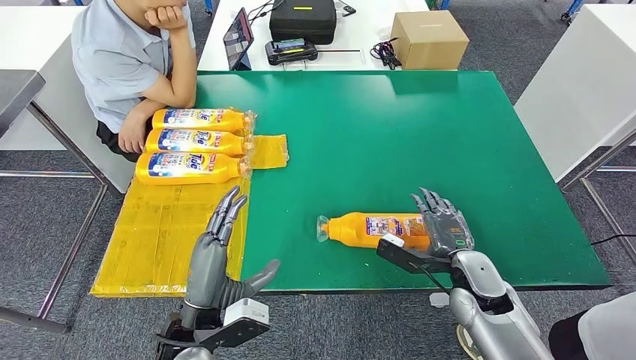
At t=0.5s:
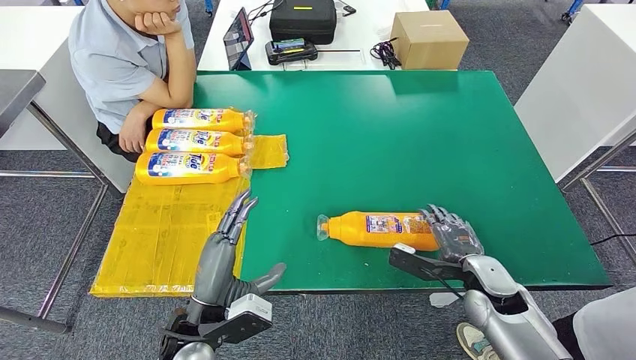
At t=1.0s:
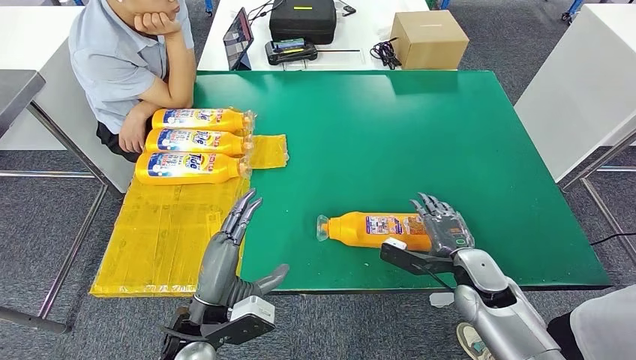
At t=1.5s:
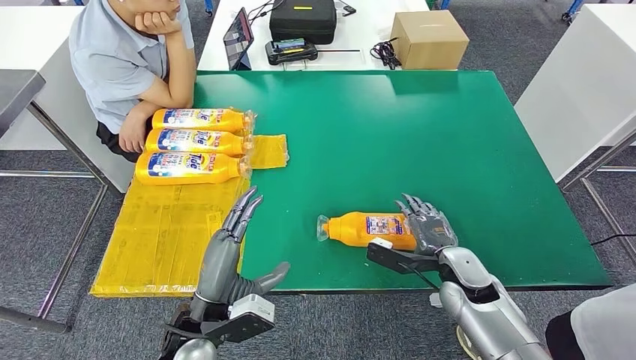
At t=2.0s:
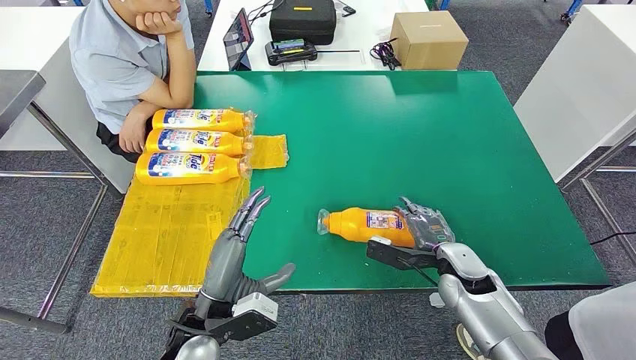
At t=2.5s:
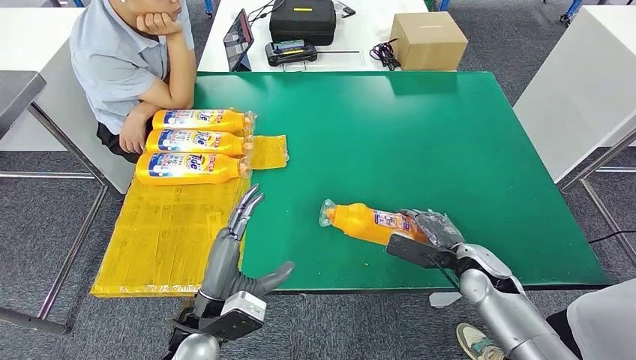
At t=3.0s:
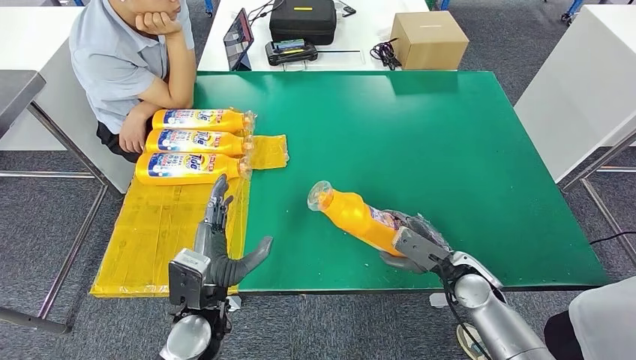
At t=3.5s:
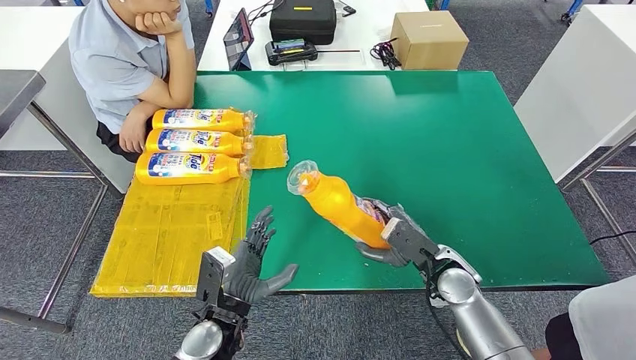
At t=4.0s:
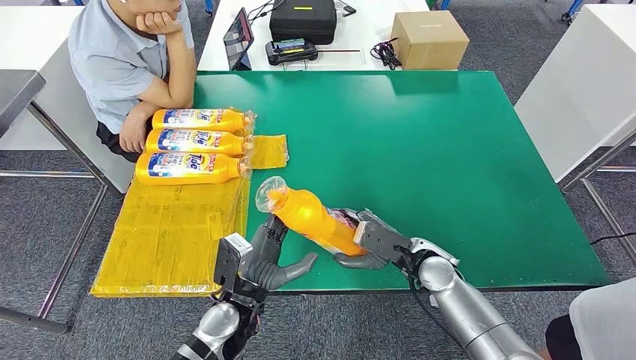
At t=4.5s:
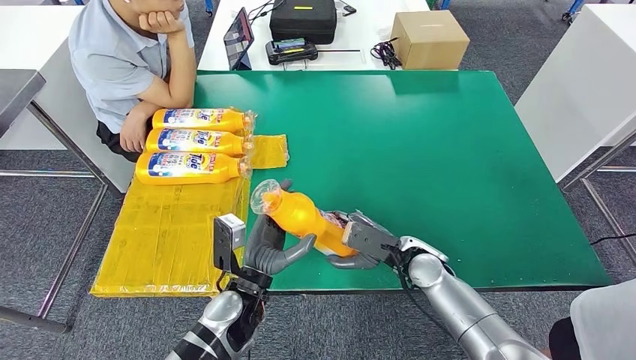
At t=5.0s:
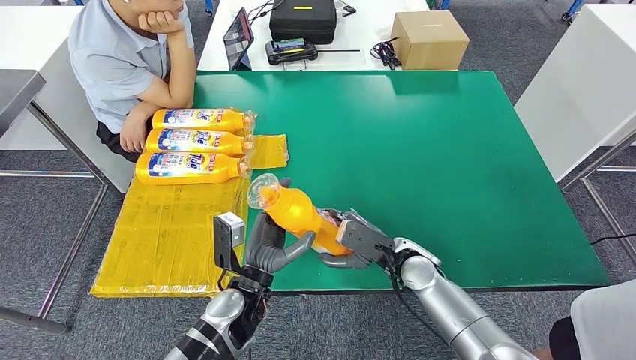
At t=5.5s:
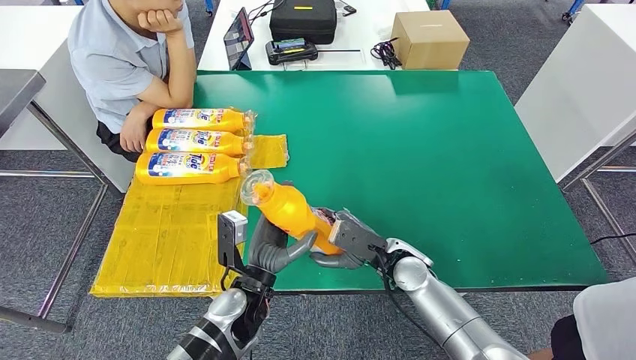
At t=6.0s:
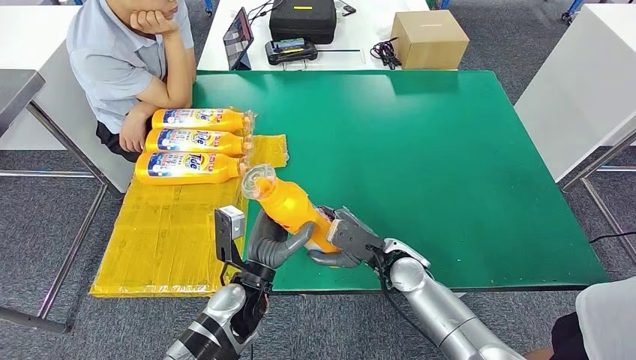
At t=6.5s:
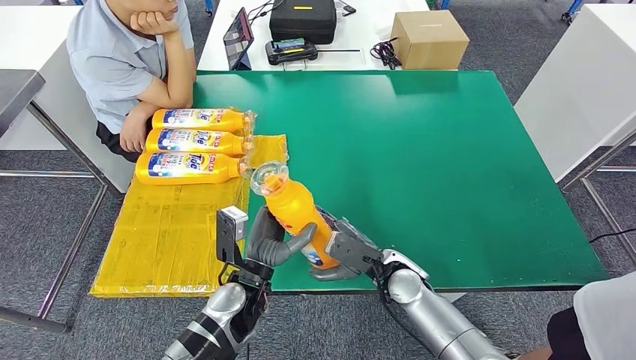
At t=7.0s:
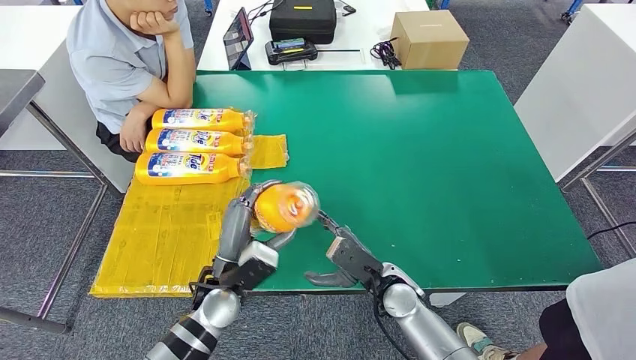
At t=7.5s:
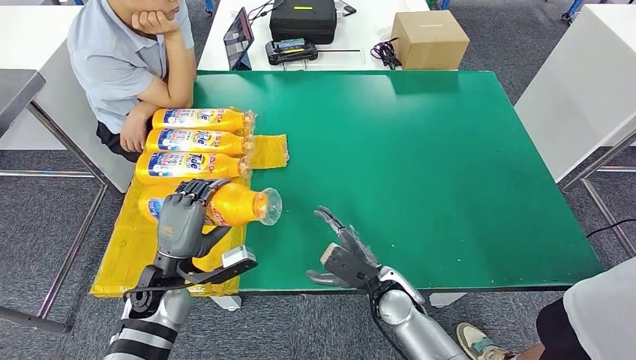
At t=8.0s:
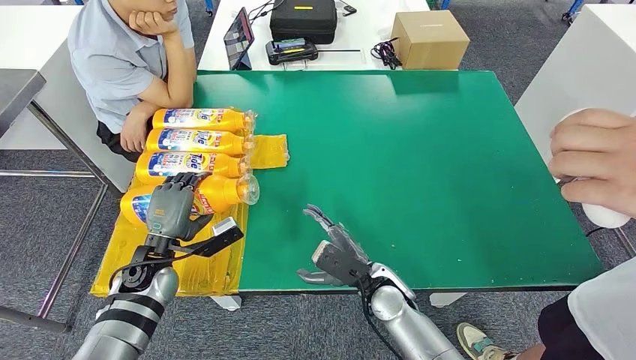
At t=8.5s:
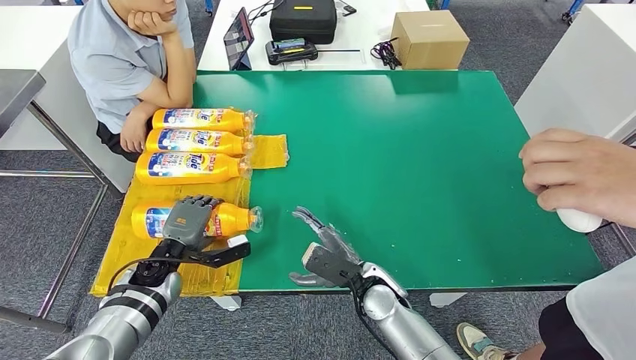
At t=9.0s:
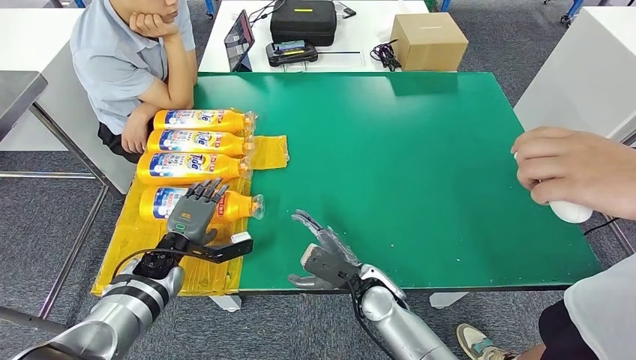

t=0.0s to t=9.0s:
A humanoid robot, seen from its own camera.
Step, t=0.0s to t=4.0s: Pick up the bottle from the table.
Step, t=4.5s to t=9.0s: Flip the bottle to face forward.
t=0.0s to t=2.0s: The hands make only small movements.
t=2.0s to t=4.5s: The right hand heads to the left, covering approximately 10 cm; the left hand moves to the right, approximately 5 cm.
t=4.5s to t=7.0s: The right hand changes place by about 5 cm.
